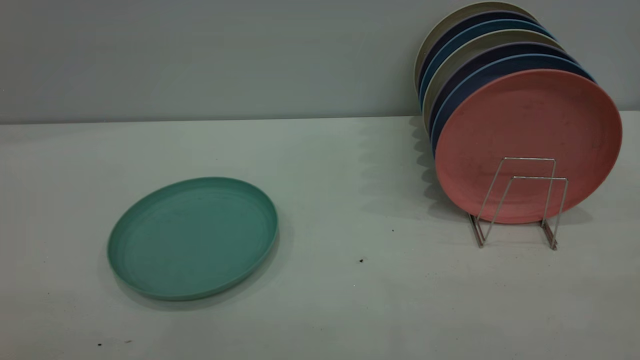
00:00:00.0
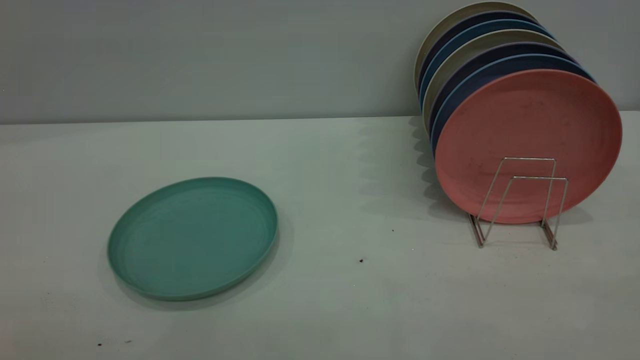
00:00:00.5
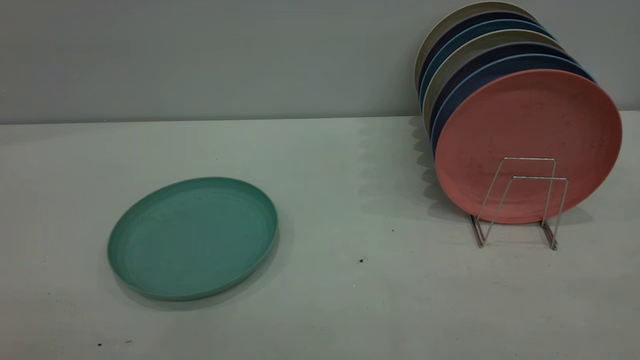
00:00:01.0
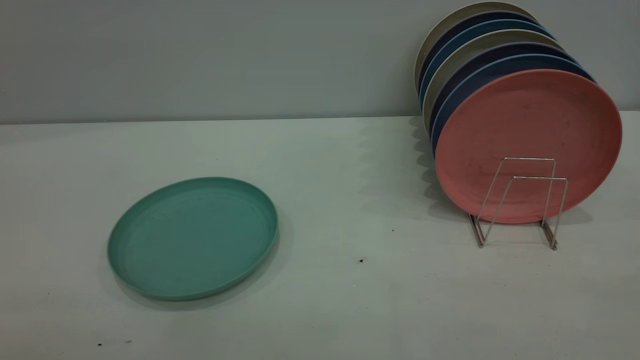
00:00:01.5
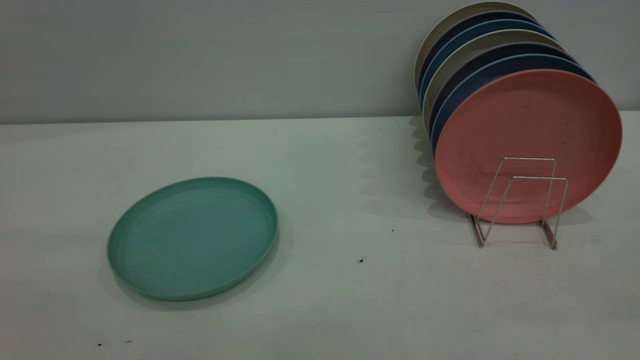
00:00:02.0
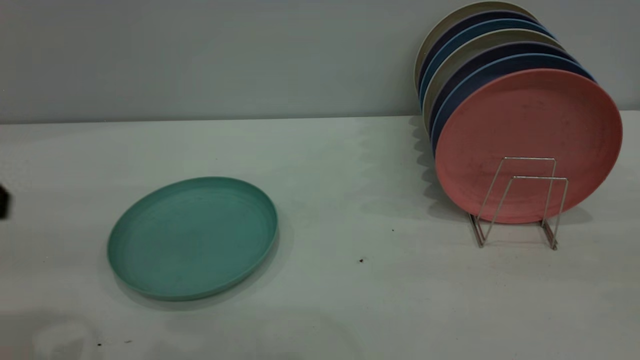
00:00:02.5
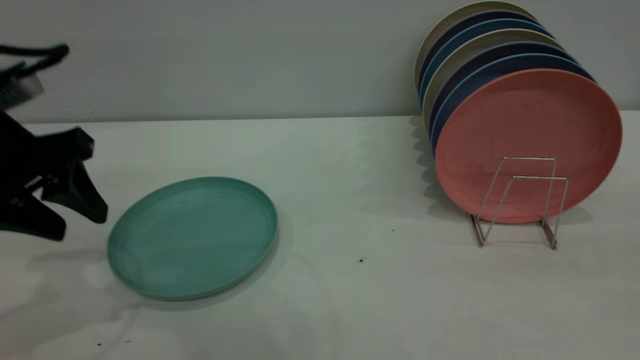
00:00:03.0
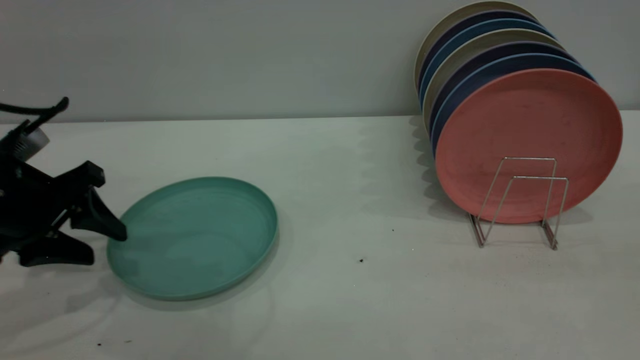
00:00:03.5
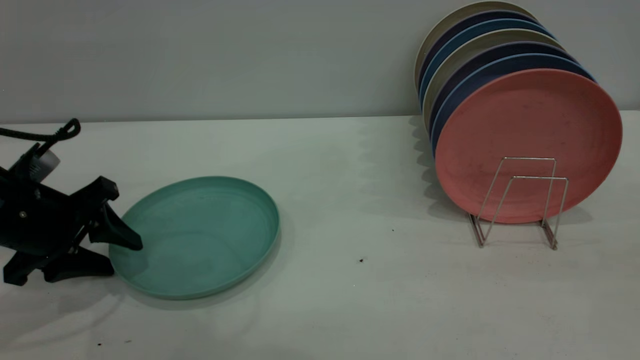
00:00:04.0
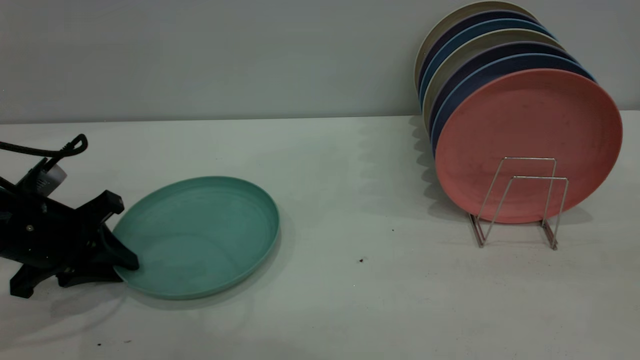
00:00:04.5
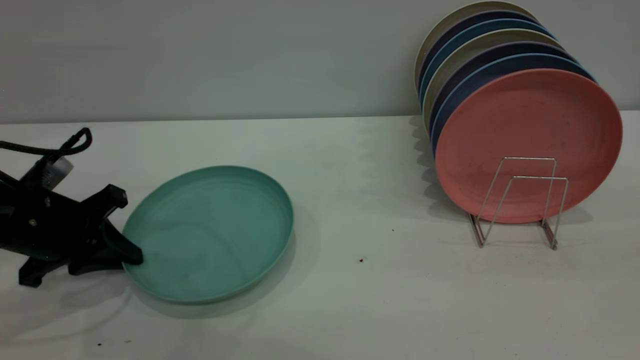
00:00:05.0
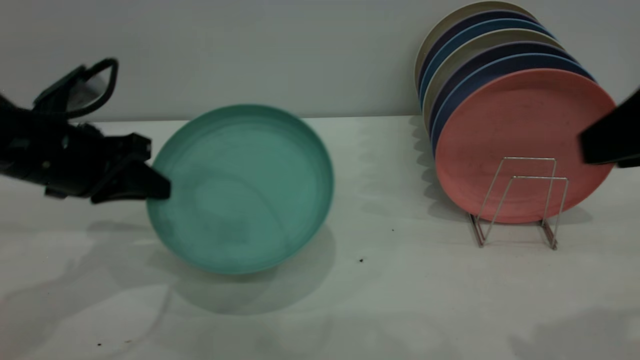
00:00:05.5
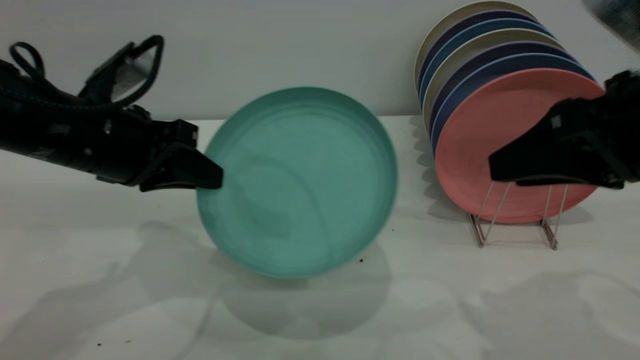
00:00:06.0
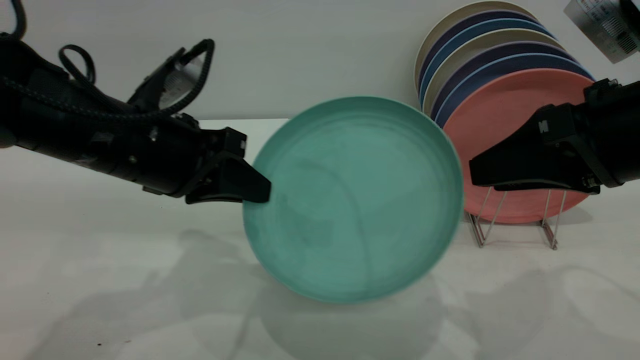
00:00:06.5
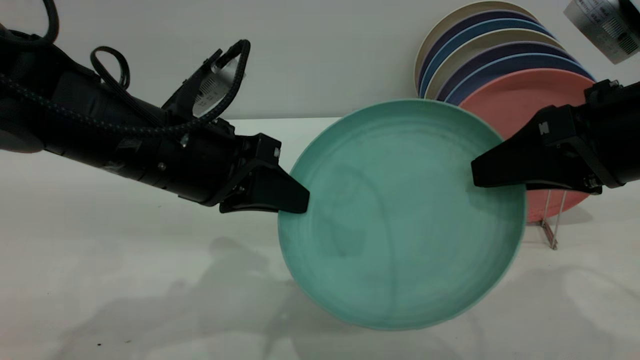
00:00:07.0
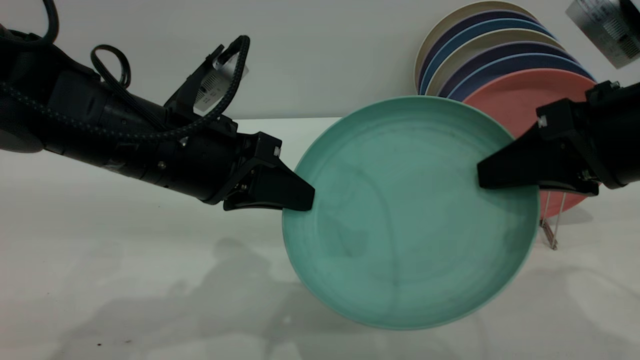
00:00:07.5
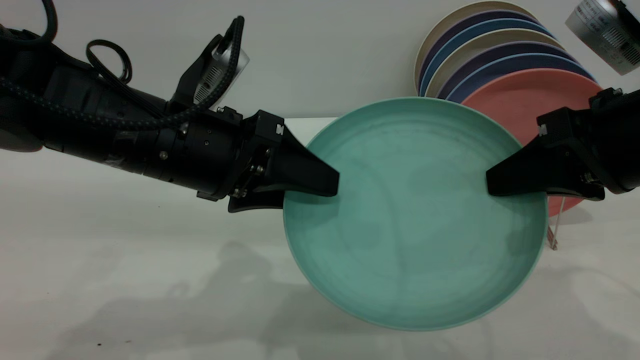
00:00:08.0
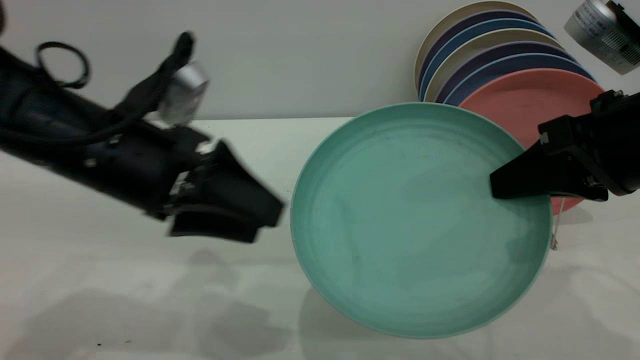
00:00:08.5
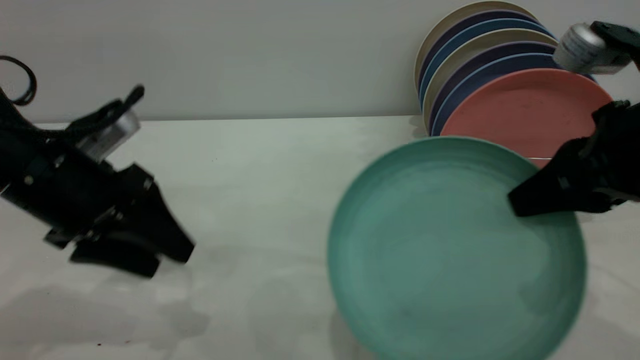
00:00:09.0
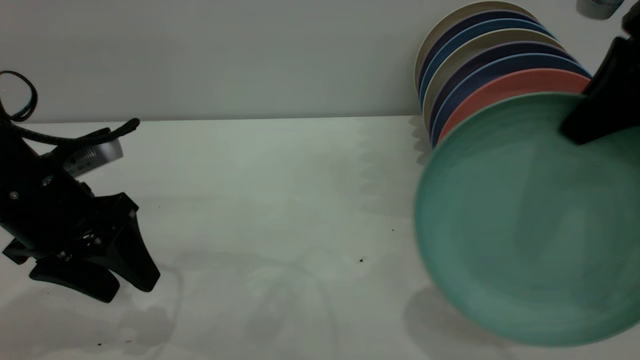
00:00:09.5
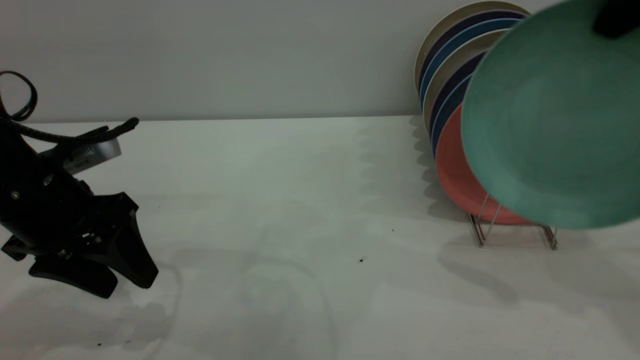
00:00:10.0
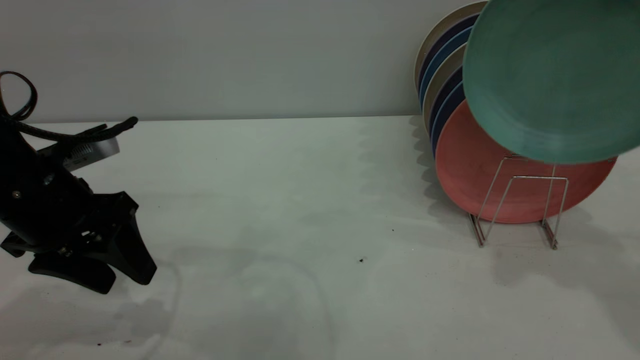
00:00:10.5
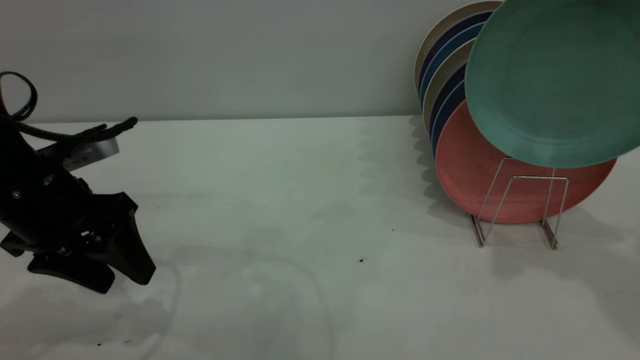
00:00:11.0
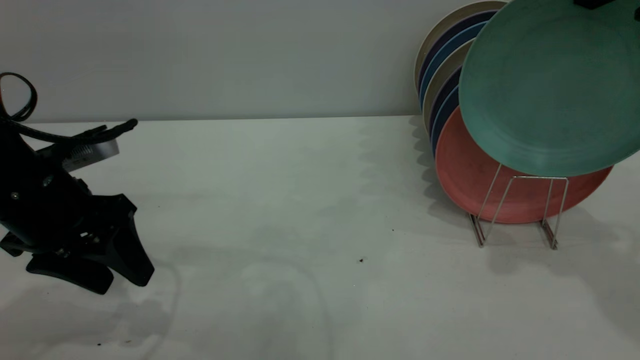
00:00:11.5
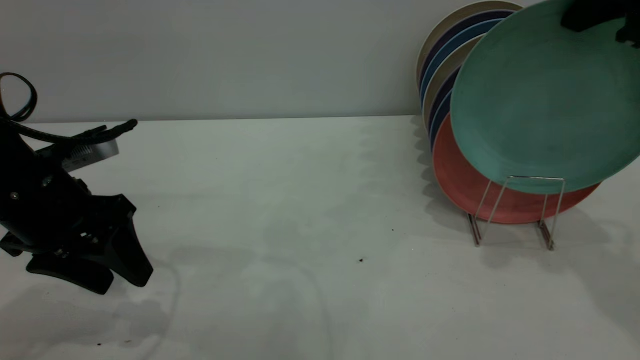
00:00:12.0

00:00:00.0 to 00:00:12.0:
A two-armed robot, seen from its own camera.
Task of the whole recording: the left gripper grasp the green plate, the left gripper pass the green plate to the right gripper, and the right gripper place the green plate on the plate rack.
Step, 00:00:00.0 to 00:00:05.0: Pick up the plate with the left gripper.
Step, 00:00:05.5 to 00:00:08.0: Pass the plate from the left gripper to the right gripper.
00:00:02.0 to 00:00:04.0: The left gripper travels downward and forward by approximately 35 cm.
00:00:04.0 to 00:00:06.0: The left gripper heads to the right and upward, covering some 10 cm, and closes. The right gripper shifts approximately 15 cm forward and downward.
00:00:06.0 to 00:00:08.0: The left gripper moves to the right, approximately 10 cm, and opens up. Meanwhile the right gripper closes up.
00:00:08.0 to 00:00:10.0: The right gripper is displaced upward and forward by about 15 cm; the left gripper travels to the left by about 15 cm.
00:00:10.0 to 00:00:12.0: The right gripper changes place by approximately 5 cm.

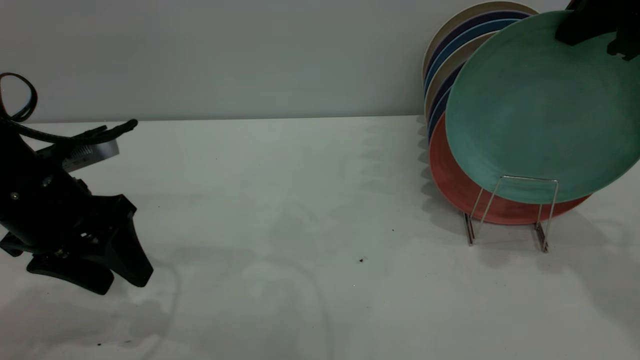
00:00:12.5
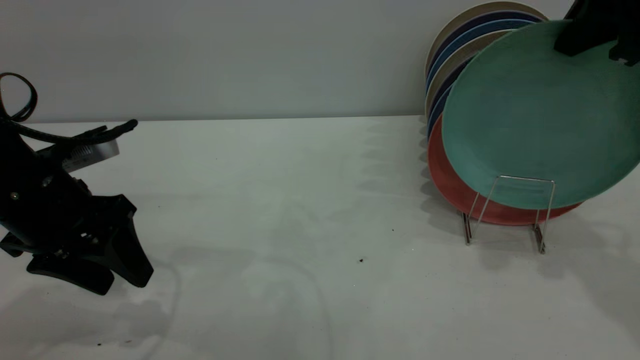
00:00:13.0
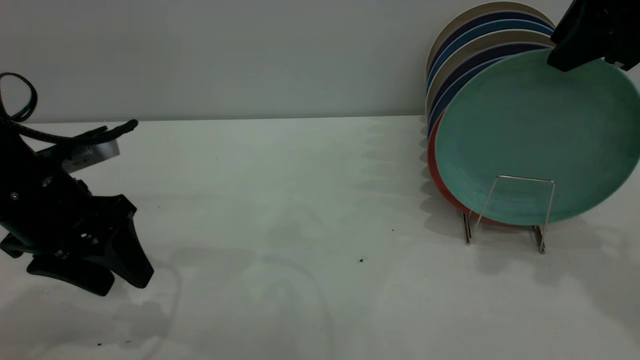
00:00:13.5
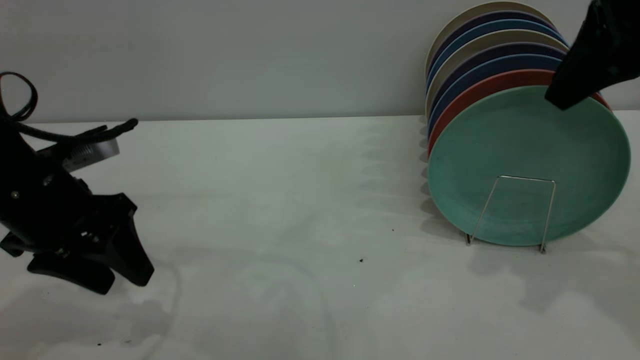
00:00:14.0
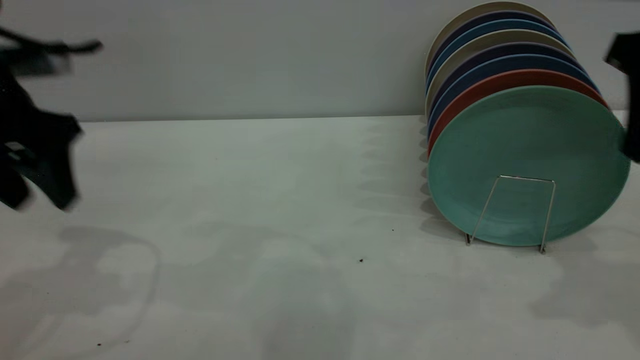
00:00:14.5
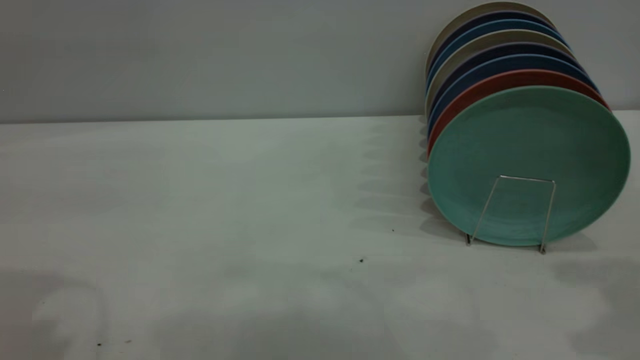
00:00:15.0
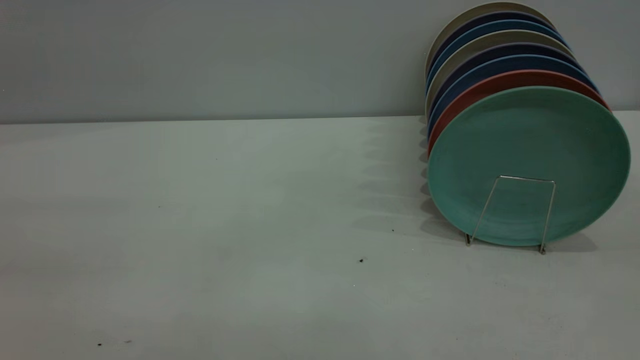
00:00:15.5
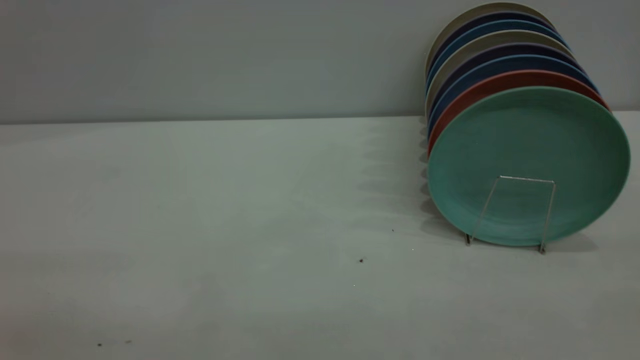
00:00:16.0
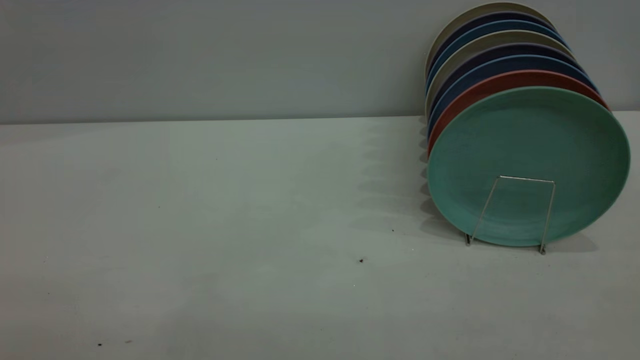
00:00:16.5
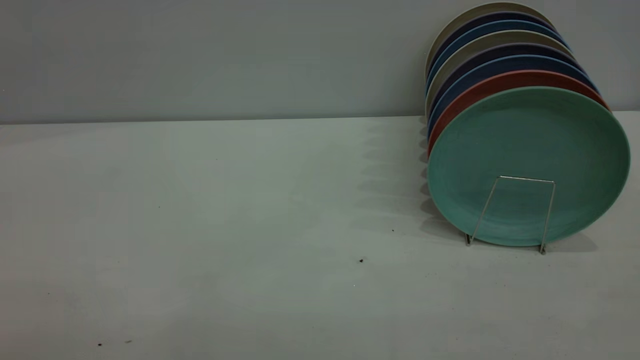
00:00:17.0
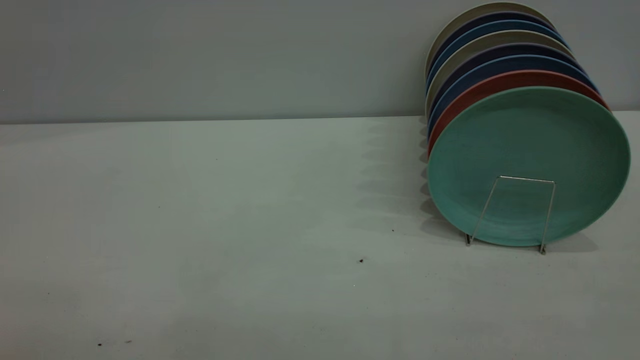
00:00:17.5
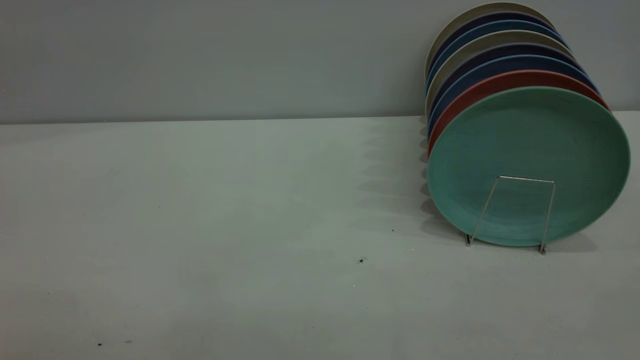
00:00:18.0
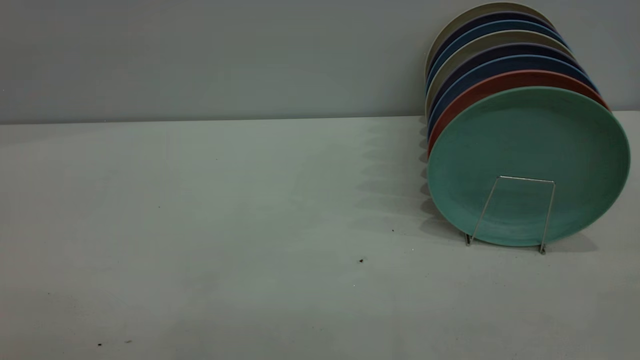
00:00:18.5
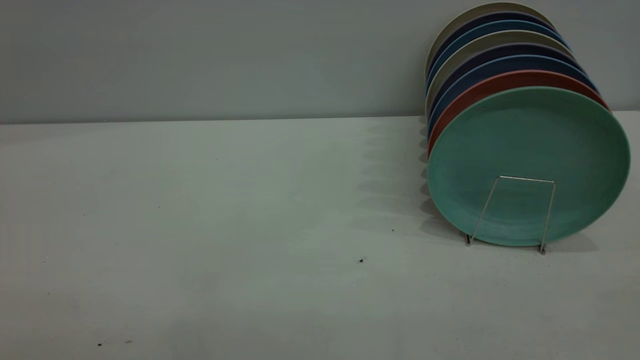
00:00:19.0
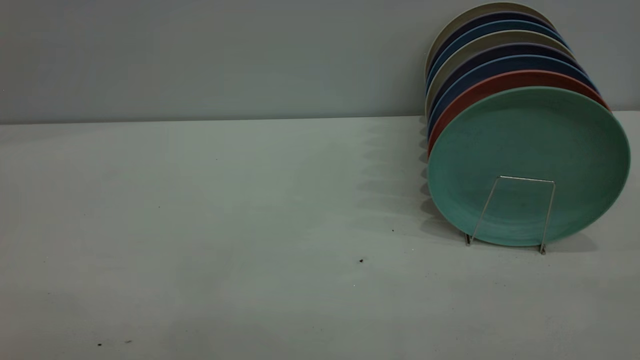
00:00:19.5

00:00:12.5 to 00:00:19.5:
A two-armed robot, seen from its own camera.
Task of the whole recording: the left gripper grasp the green plate, the left gripper pass the green plate to the right gripper, and the right gripper place the green plate on the plate rack.
Step, 00:00:12.5 to 00:00:14.5: Place the plate on the shelf.
00:00:12.5 to 00:00:14.5: The left gripper heads upward, covering approximately 10 cm. Meanwhile the right gripper heads backward, covering about 5 cm, and opens its fingers.
00:00:14.5 to 00:00:16.0: The two grippers go some 30 cm backward.
